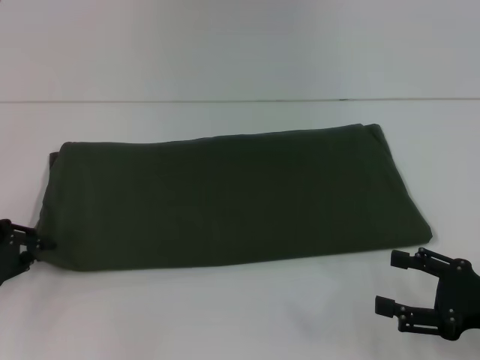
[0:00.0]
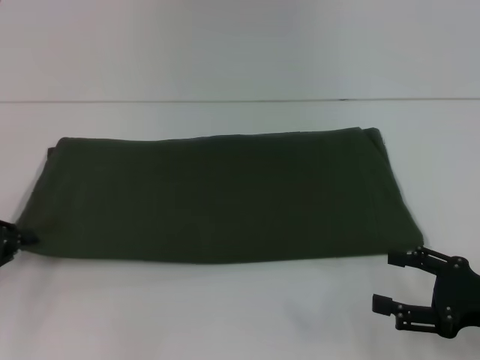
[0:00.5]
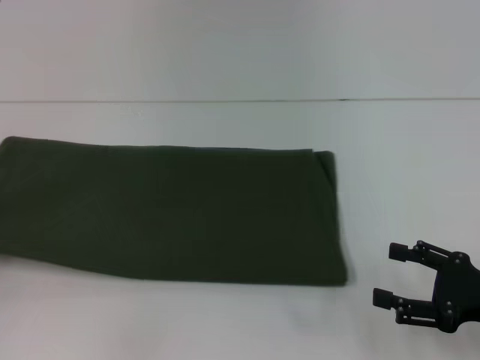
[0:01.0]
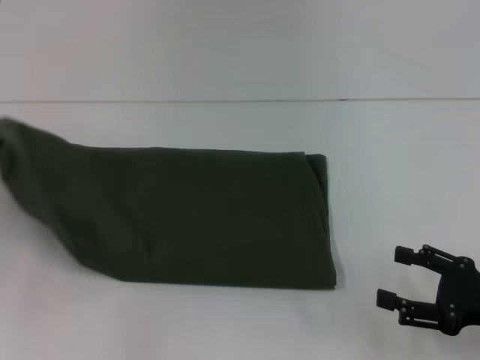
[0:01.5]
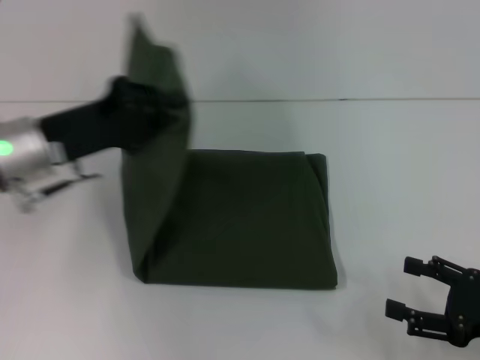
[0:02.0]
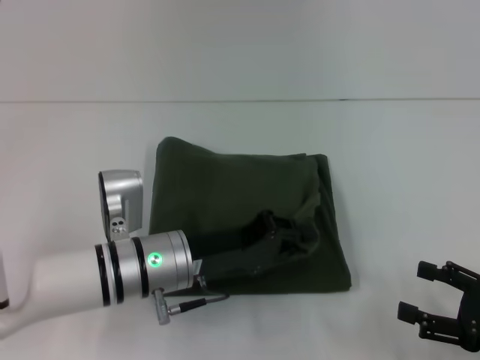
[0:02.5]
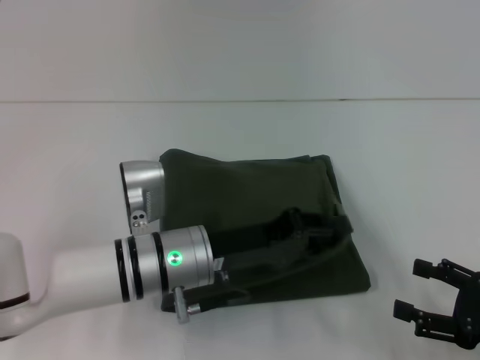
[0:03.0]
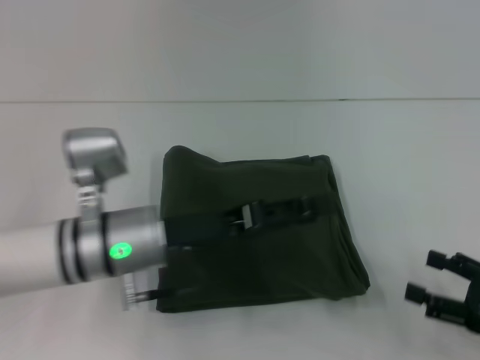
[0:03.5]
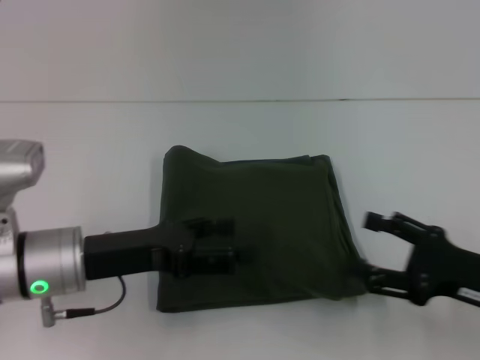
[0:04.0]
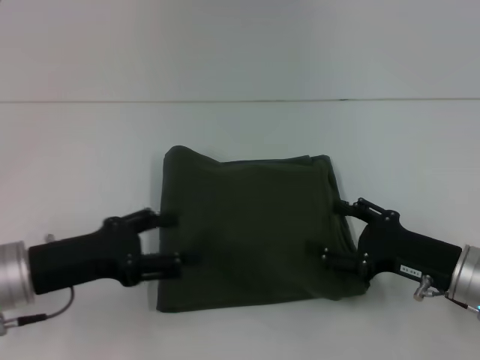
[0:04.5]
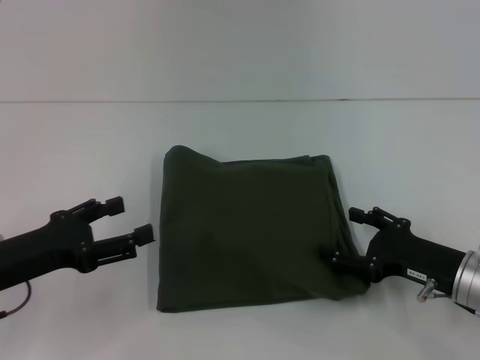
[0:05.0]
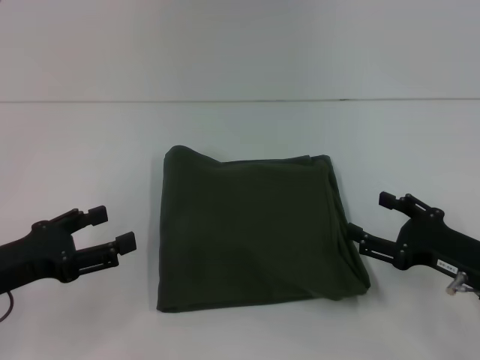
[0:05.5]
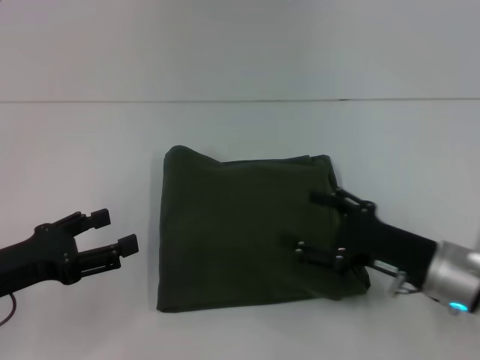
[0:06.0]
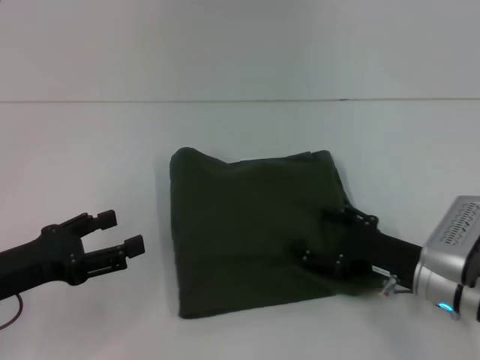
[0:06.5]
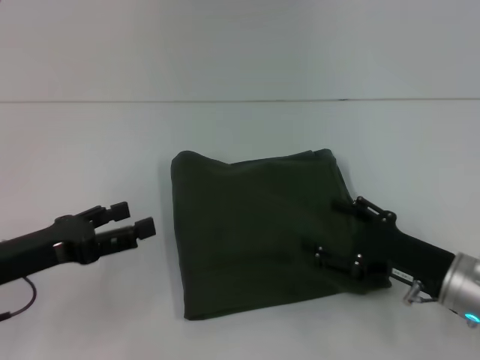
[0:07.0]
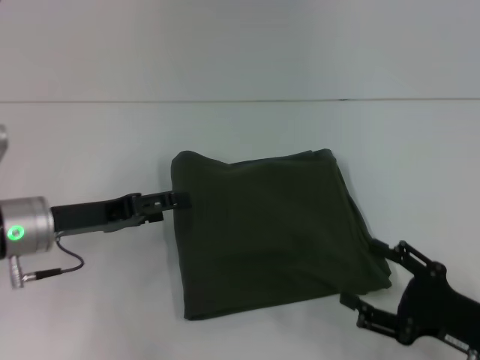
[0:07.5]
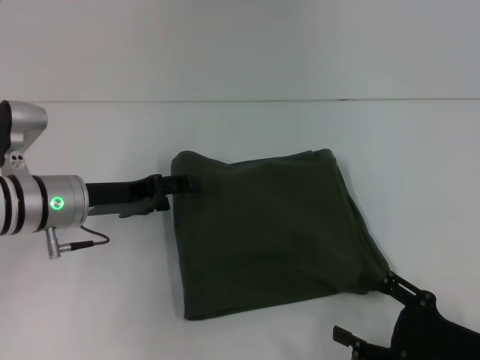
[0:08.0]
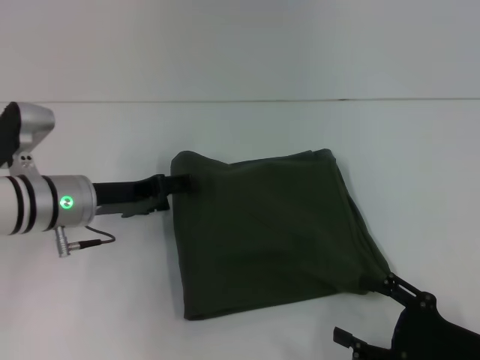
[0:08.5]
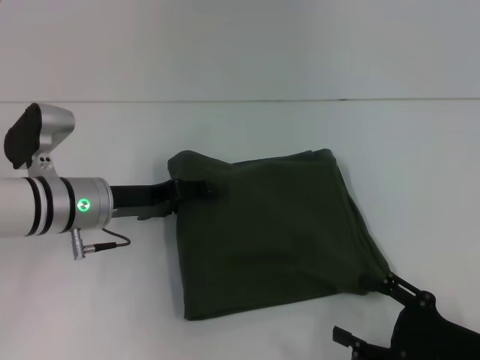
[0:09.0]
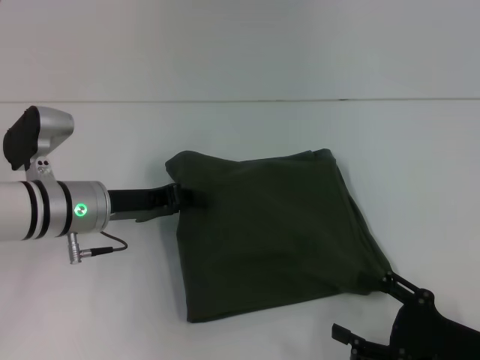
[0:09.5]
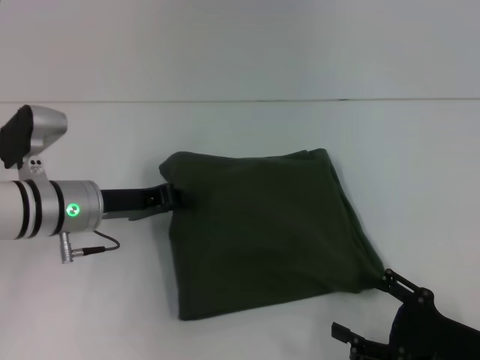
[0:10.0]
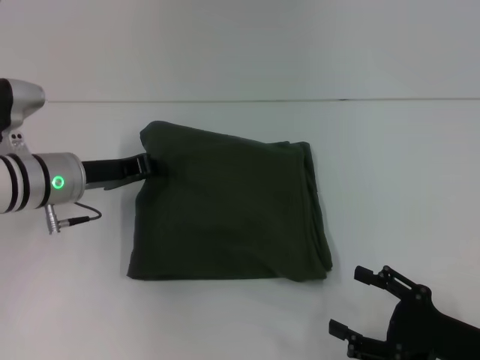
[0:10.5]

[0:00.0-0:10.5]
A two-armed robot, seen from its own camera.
Step, 0:00.0 to 0:03.0: Fold the clothes with your left hand.
0:00.0 to 0:02.0: The left gripper is displaced to the right, upward and forward by about 15 cm, and closes.
0:02.0 to 0:04.0: The left gripper is displaced backward by roughly 5 cm, reaches some 15 cm to the right, then returns, and opens.
0:04.0 to 0:06.5: The left gripper goes approximately 10 cm to the left. Meanwhile the right gripper moves to the left and downward, approximately 10 cm.
0:06.5 to 0:08.5: The right gripper goes approximately 10 cm backward and to the right; the left gripper goes approximately 15 cm forward and to the right.
0:08.5 to 0:10.5: The left gripper closes.

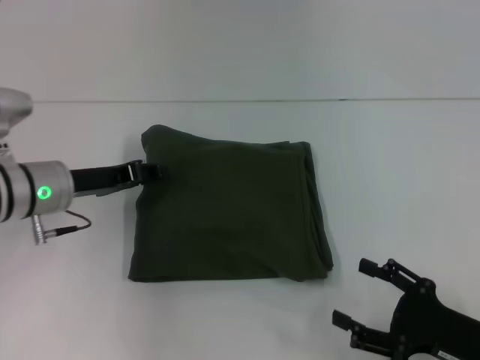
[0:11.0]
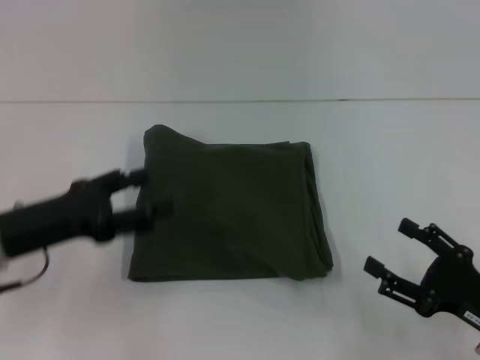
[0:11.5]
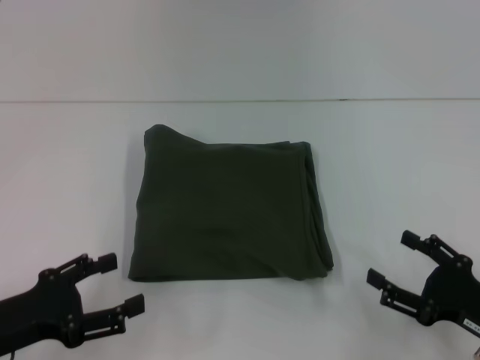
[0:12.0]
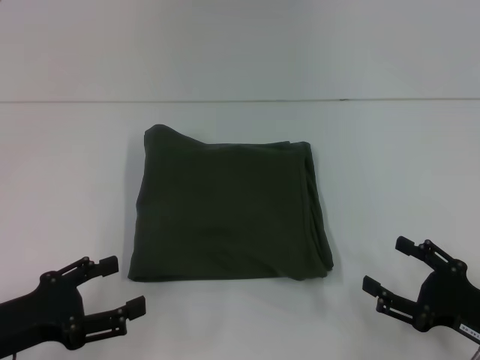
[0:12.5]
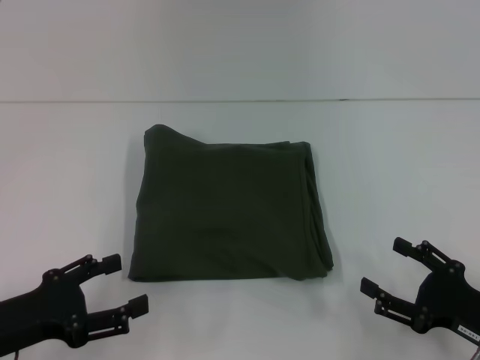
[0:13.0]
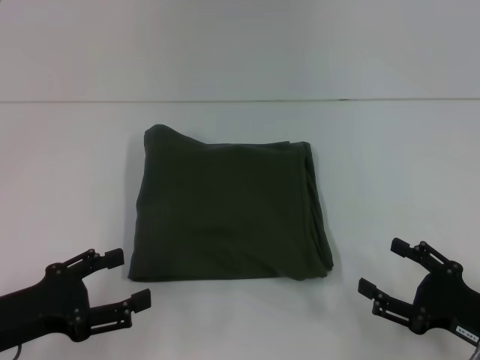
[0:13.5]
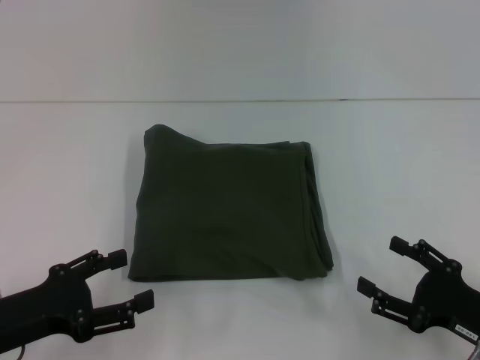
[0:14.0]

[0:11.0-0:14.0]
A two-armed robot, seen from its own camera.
0:11.0 to 0:12.5: The left gripper goes approximately 15 cm backward, and opens up.
0:12.5 to 0:14.0: Both grippers stay about where they are.
